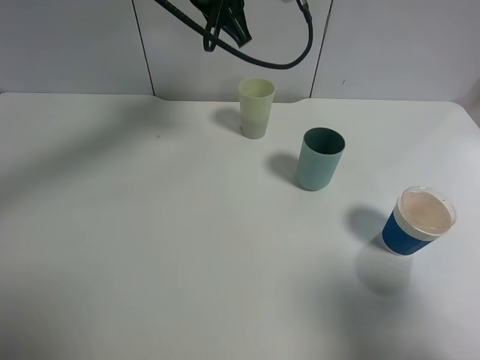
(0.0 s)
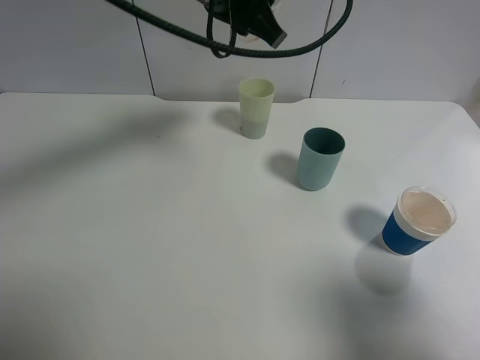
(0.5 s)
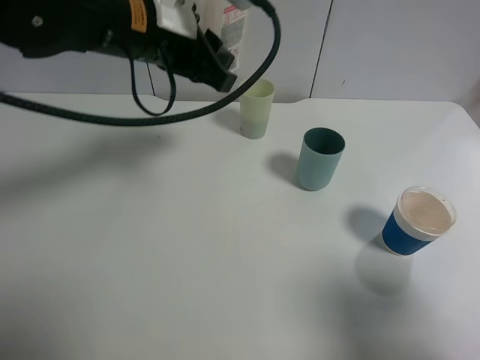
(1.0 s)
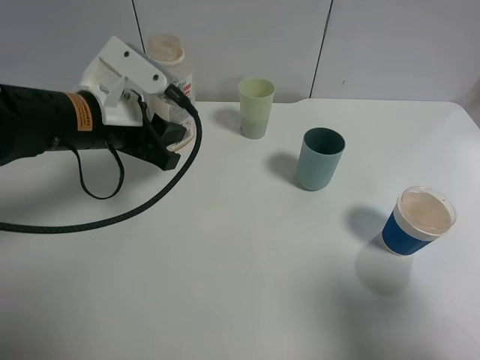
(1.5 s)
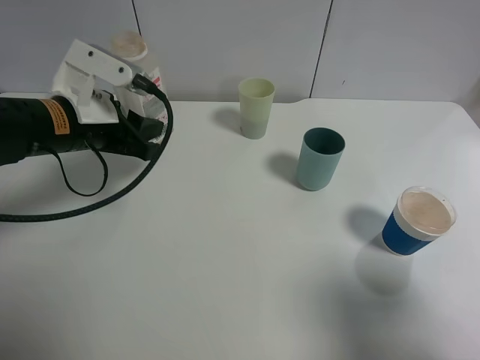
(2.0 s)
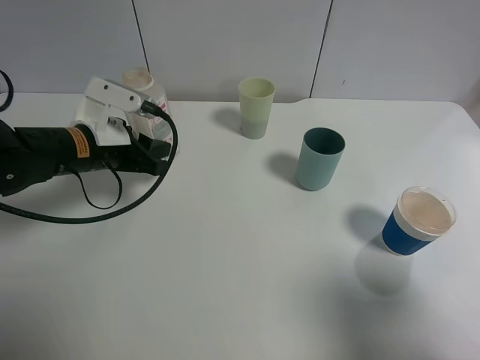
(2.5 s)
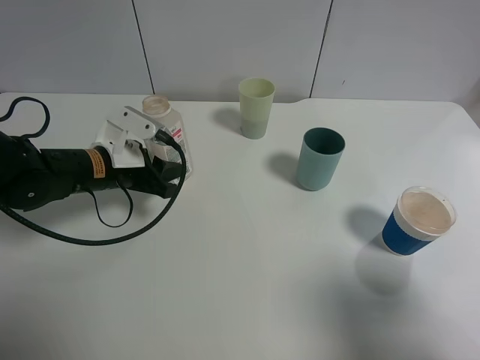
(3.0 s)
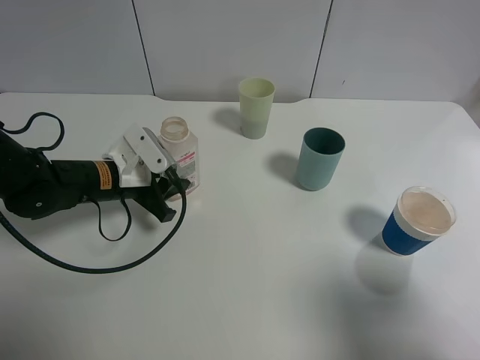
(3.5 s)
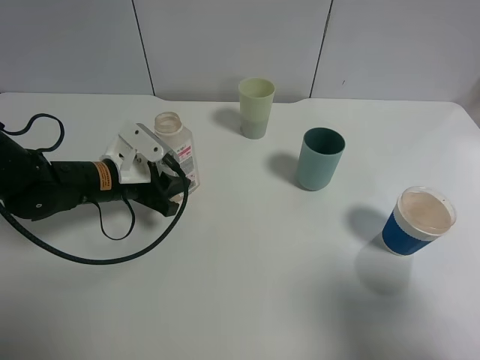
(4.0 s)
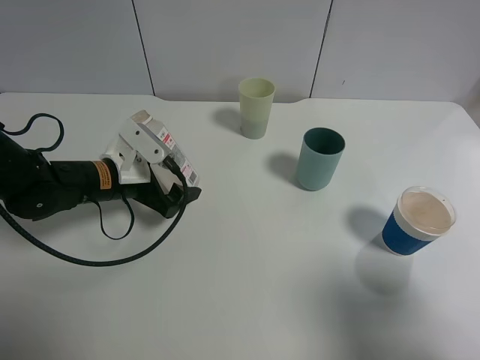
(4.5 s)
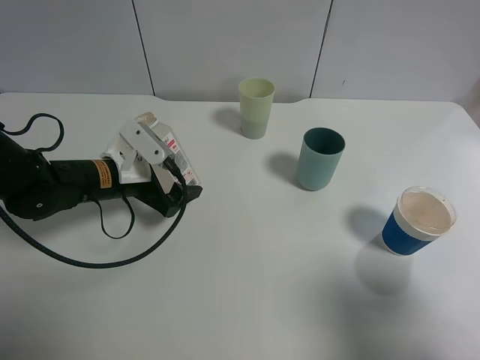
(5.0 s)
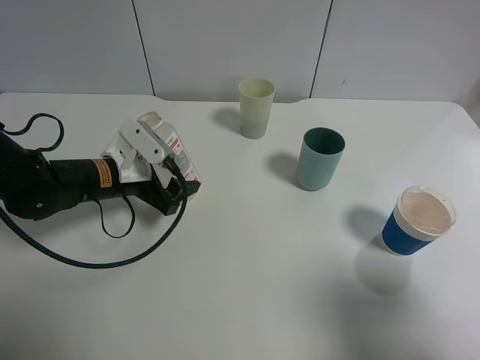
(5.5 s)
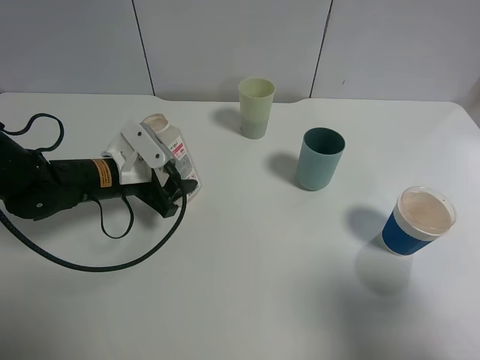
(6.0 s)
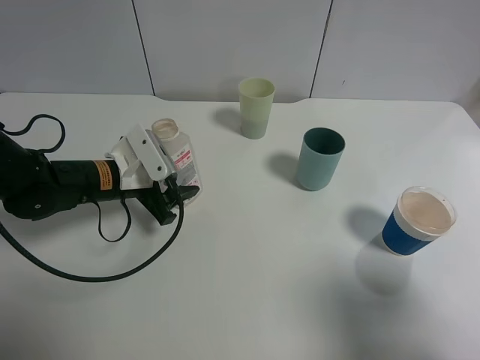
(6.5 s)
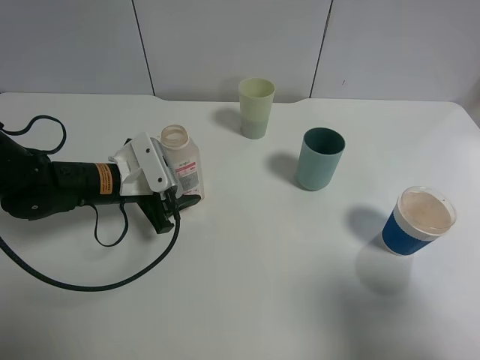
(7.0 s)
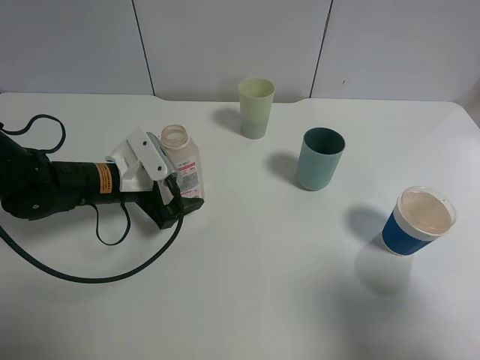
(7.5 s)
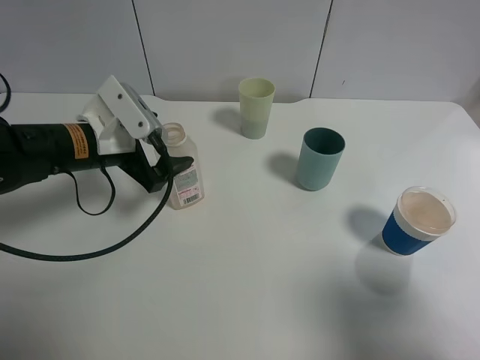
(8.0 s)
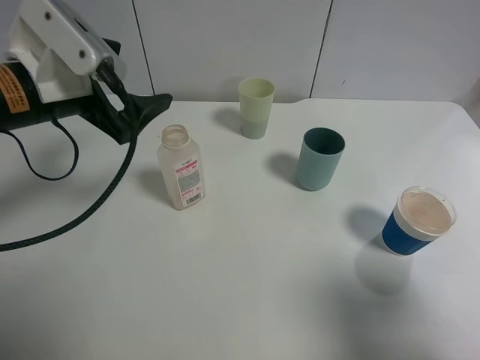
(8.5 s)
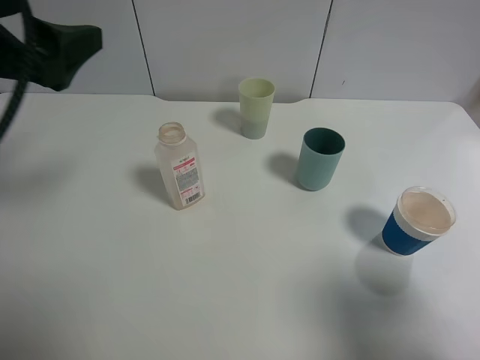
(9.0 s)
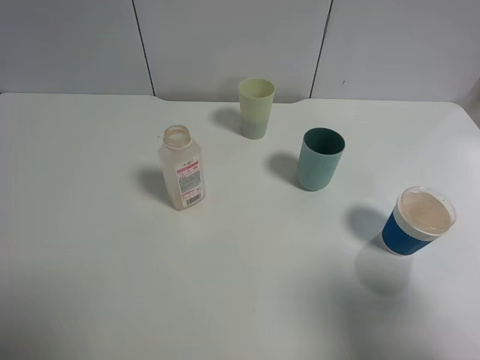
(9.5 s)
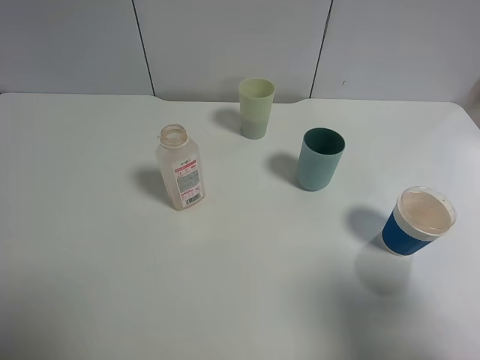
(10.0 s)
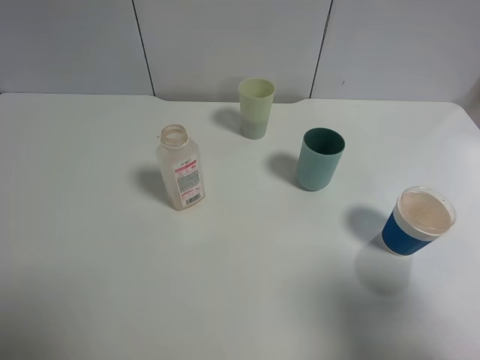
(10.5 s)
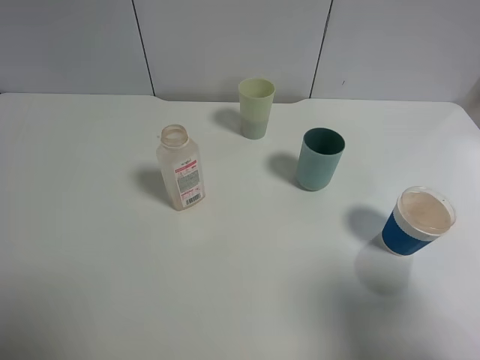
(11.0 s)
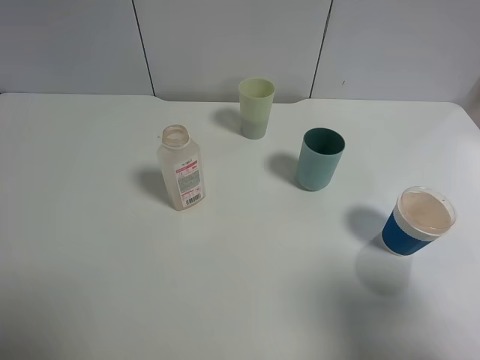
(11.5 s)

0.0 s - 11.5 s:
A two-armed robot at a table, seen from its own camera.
Task of the whole recording: use a gripper to hold the bottle of the drink and pour it into a random cup.
Step, 0.0 s - 8.0 s: Place the cranberry juice bottle on the table with the left gripper.
0.0 s - 2.0 s: The left gripper travels to the left, backward and downward by approximately 25 cm.
2.0 s - 4.0 s: The left gripper shifts roughly 10 cm downward.
4.0 s - 6.0 s: The left gripper opens.
6.0 s - 7.5 s: The left gripper opens.
7.5 s - 9.5 s: The left gripper shifts about 35 cm upward, backward and to the left.

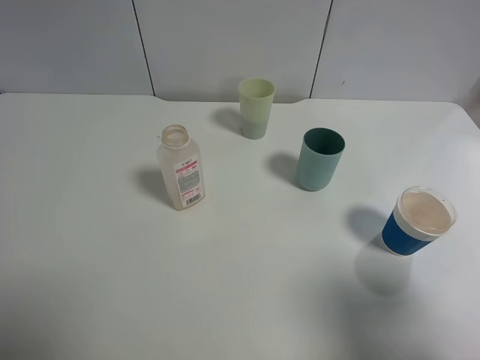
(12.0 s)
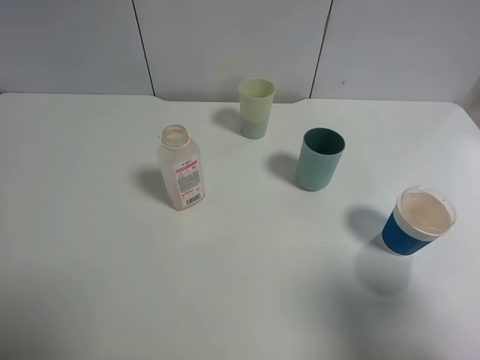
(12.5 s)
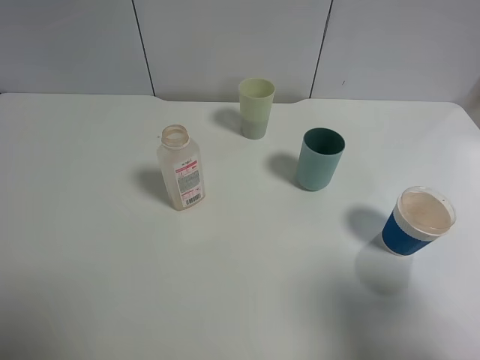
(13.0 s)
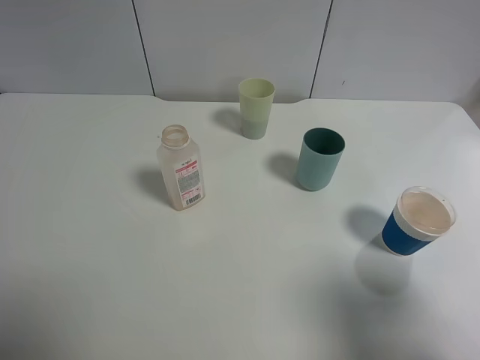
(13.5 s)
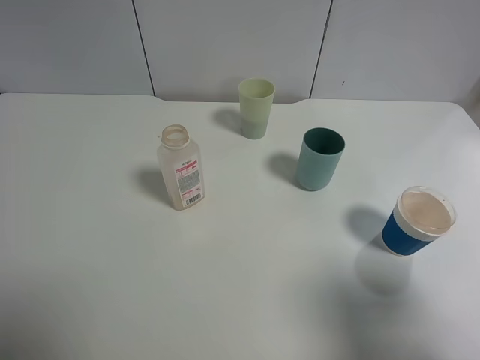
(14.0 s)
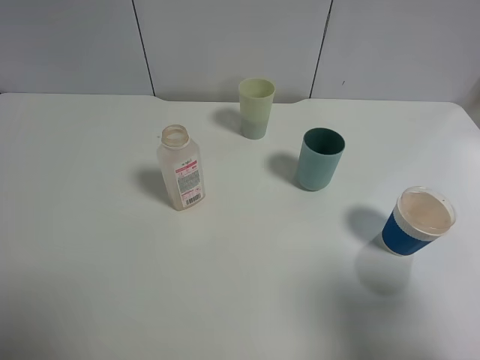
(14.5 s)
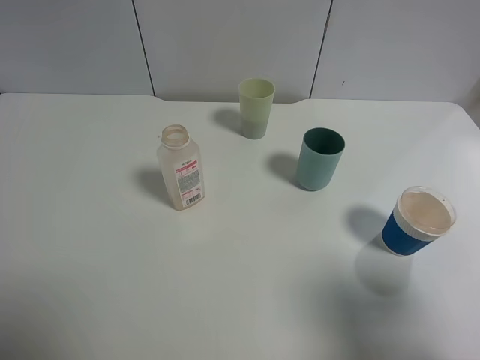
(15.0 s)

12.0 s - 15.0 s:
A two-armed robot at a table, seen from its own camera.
Task of the whole recording: use a gripper to hold the bottle of the drink and pour it into a random cup.
13.5 s - 15.0 s: Neither gripper changes place.

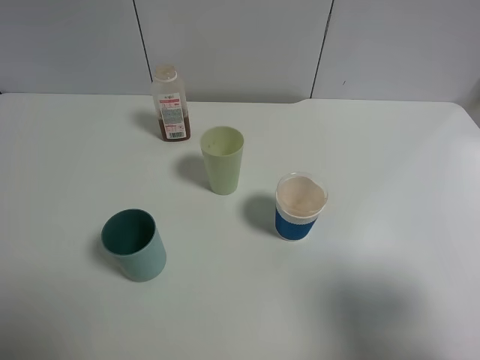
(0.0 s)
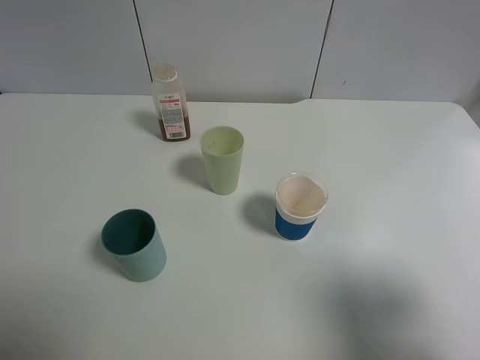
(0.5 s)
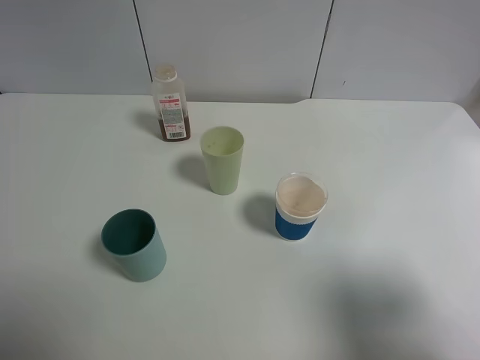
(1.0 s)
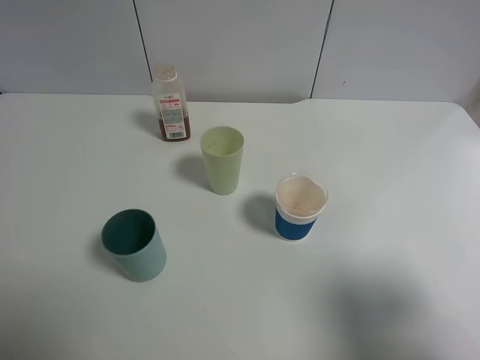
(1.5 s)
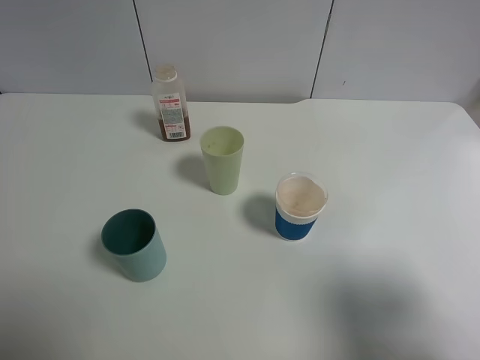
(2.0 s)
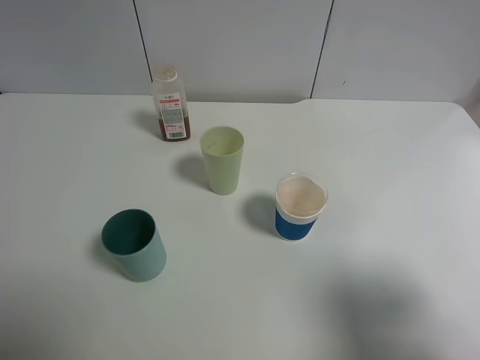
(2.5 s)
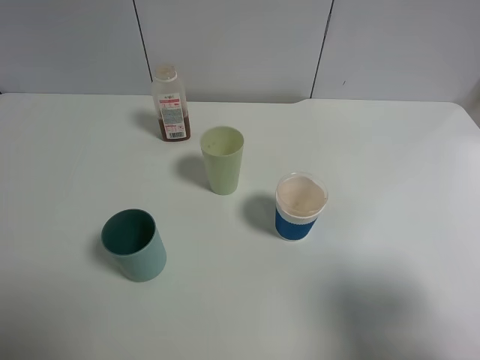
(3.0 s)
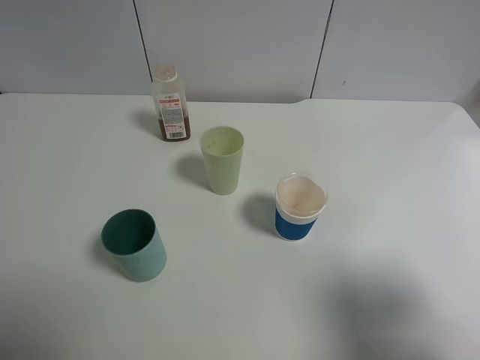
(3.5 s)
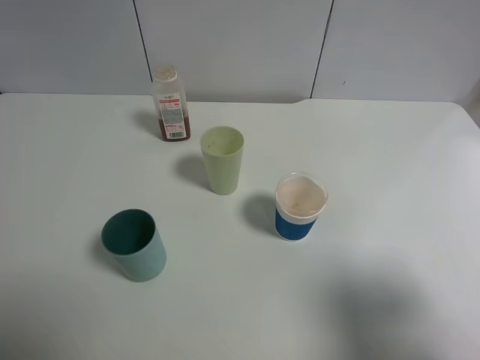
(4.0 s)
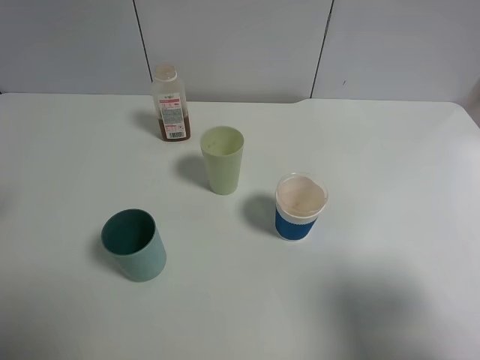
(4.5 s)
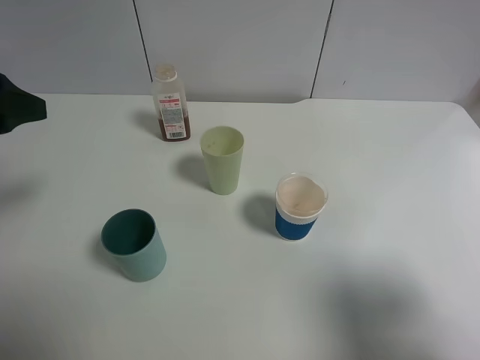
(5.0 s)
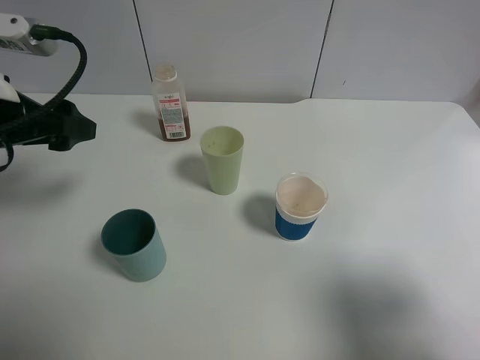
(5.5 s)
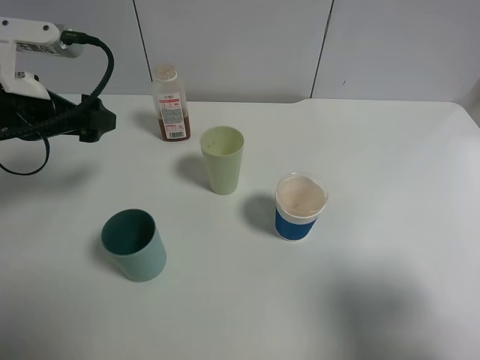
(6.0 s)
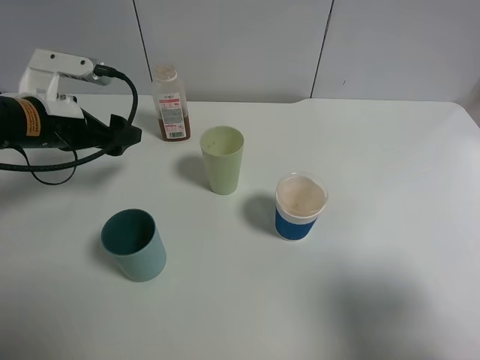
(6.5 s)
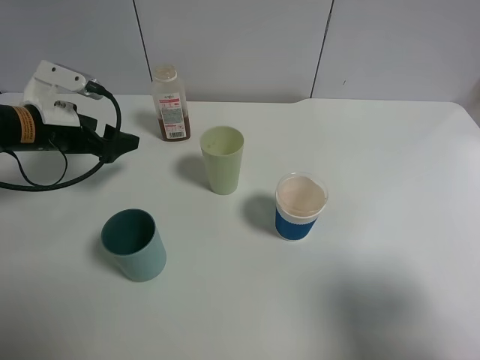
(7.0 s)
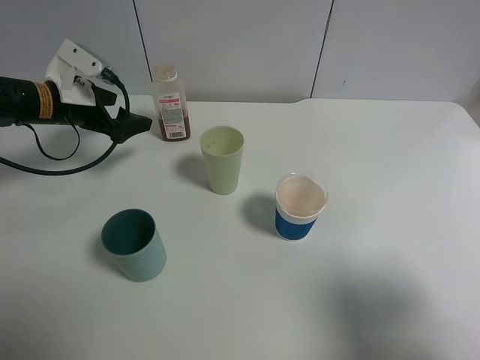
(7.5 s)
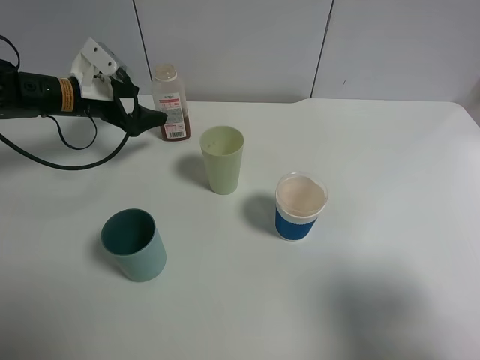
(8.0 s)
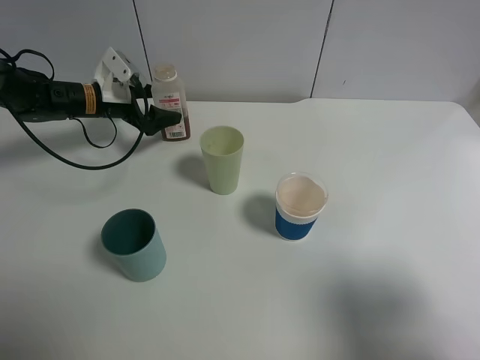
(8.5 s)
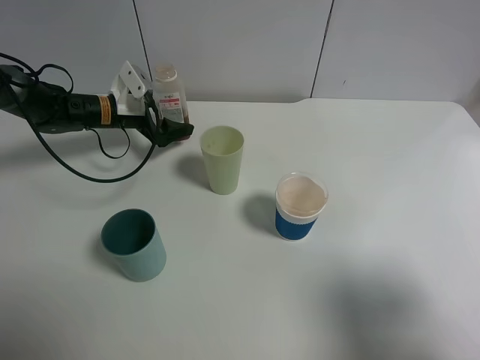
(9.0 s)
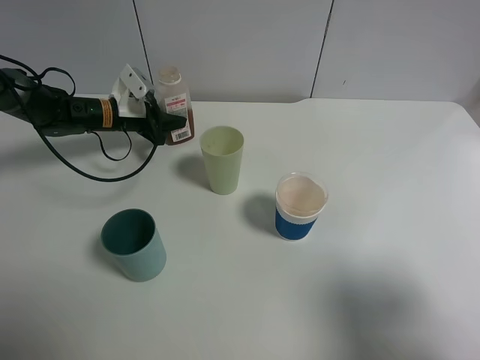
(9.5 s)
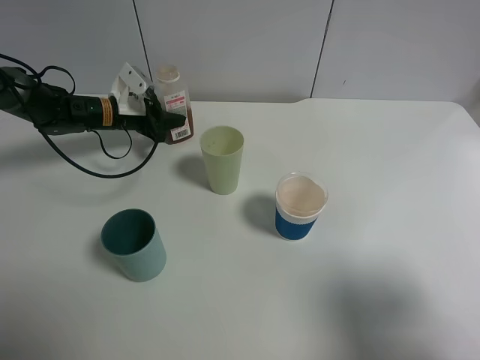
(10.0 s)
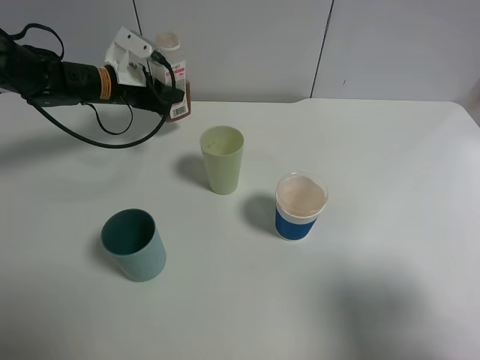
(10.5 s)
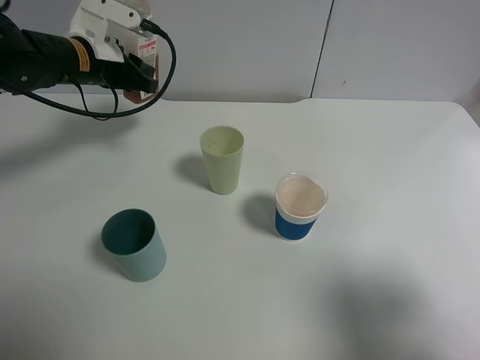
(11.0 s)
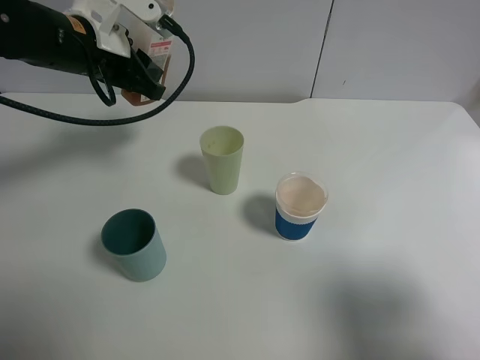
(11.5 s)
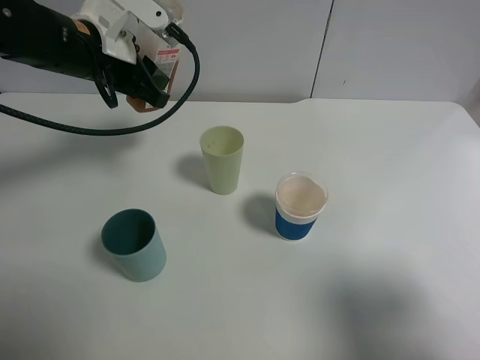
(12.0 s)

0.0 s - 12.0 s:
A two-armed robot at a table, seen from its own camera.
Task of the whole recording: use a gripper to hold the bottle of the drink and pour it into a random cup.
Step, 0.0 s - 9.5 s: Grasp the cranberry juice bottle with the left gripper.
0.0 s - 2.0 s: Neither gripper changes place.
4.0 s - 6.0 s: The left gripper is displaced forward and downward by roughly 25 cm.
6.0 s - 8.0 s: The left gripper goes approximately 15 cm forward and downward.
8.0 s - 10.0 s: The left gripper is displaced downward by some 5 cm, and closes its fingers.
10.0 s - 12.0 s: The left gripper travels upward and backward by about 20 cm.
